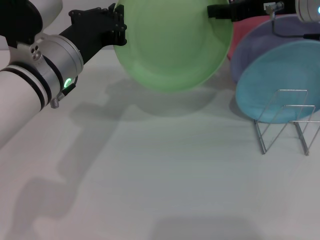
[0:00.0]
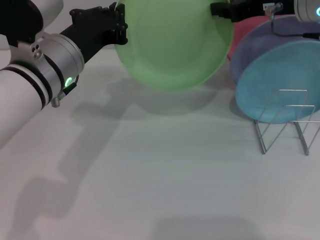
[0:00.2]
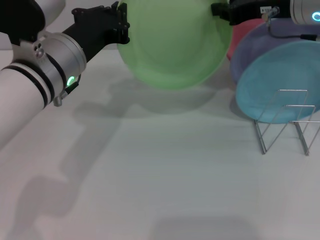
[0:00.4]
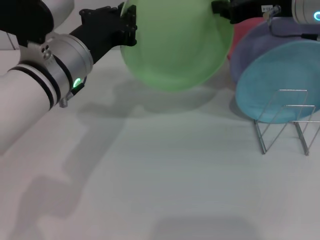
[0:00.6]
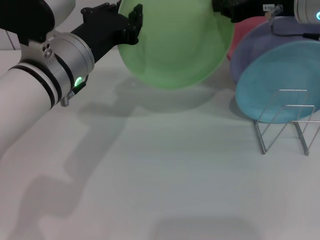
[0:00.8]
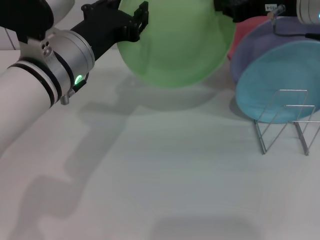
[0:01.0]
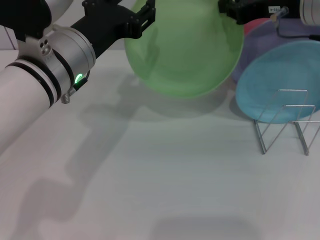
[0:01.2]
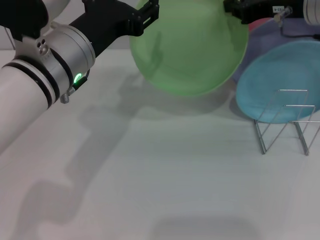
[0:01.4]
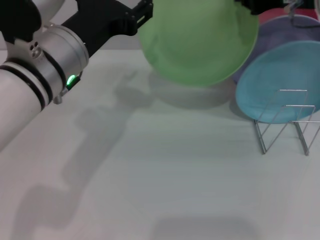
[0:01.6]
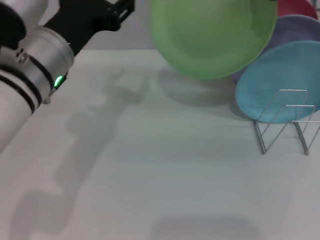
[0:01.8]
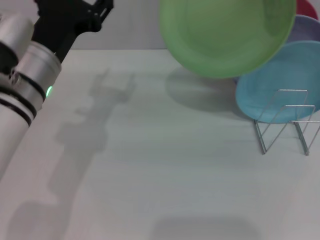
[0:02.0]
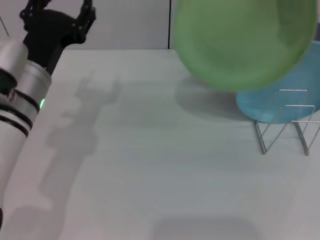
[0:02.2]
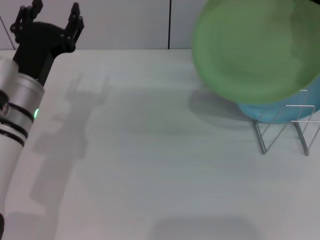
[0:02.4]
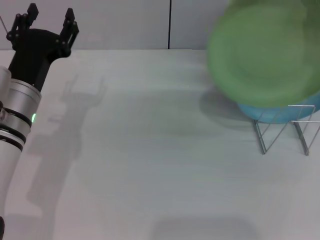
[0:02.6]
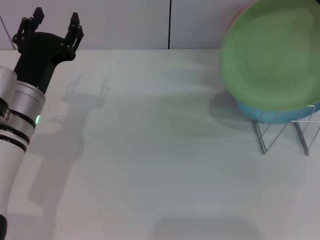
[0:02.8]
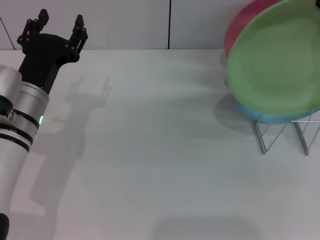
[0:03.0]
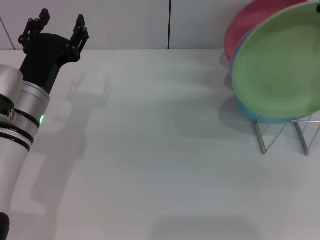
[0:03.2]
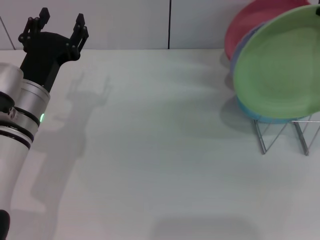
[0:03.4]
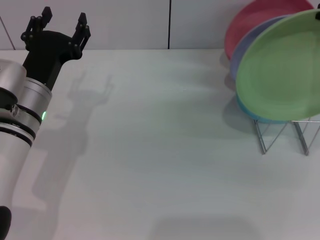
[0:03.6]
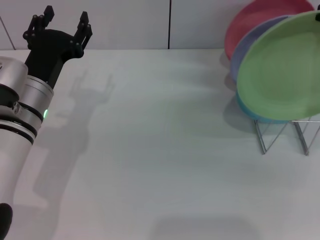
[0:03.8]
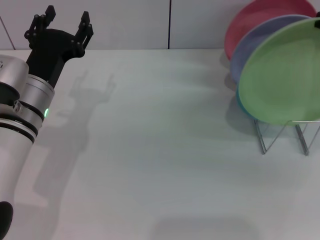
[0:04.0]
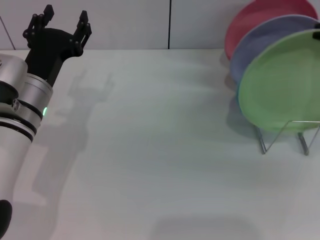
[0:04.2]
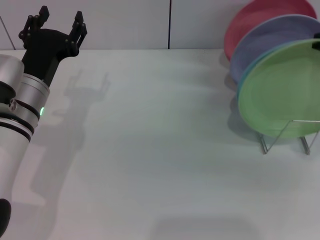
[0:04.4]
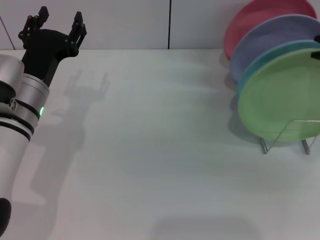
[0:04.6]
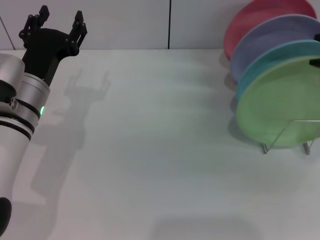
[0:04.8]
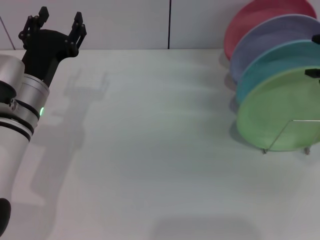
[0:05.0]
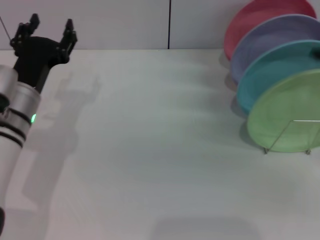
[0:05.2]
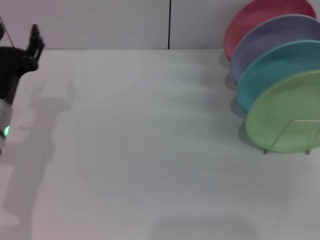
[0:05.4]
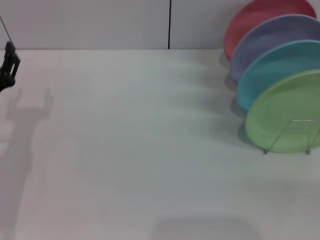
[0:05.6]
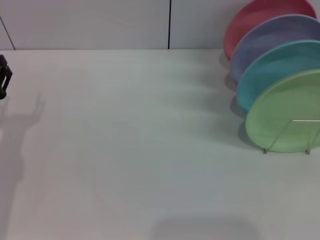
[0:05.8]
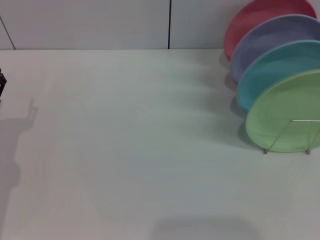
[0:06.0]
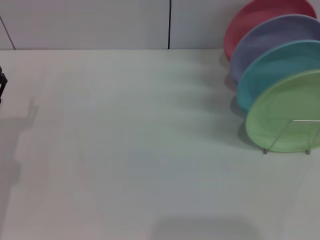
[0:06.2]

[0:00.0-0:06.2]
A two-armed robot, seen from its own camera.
Task of the whole recording: Grip the plate with one hand, pass it to the other, then set it on the shelf.
Step, 0:02.0 to 0:05.2: Place the plate on the shelf with the right gripper.
0:00.0 to 0:01.6: The right gripper closes its fingers, while the left gripper opens.
0:01.6 to 0:03.2: The left gripper heads downward and to the left, covering roughly 10 cm, while the right gripper travels backward, upward and to the right by roughly 15 cm.
0:03.2 to 0:04.6: The right gripper ends up roughly 5 cm from where it was.
0:04.6 to 0:06.2: The left gripper goes roughly 15 cm to the left, downward and backward, while the right gripper is displaced downward, backward and to the right by approximately 35 cm, and opens.
